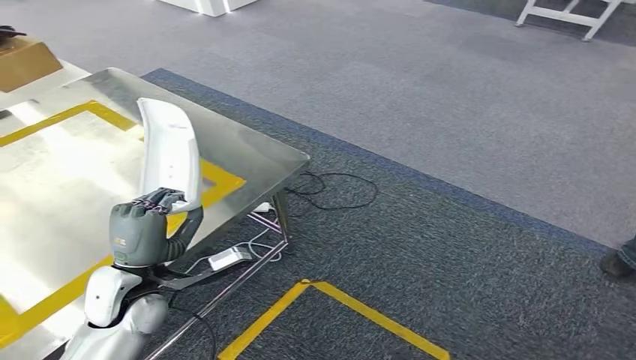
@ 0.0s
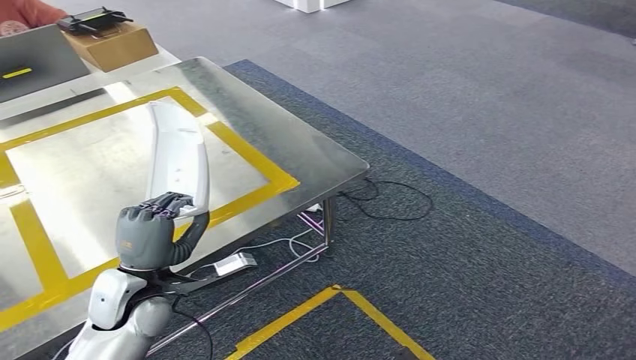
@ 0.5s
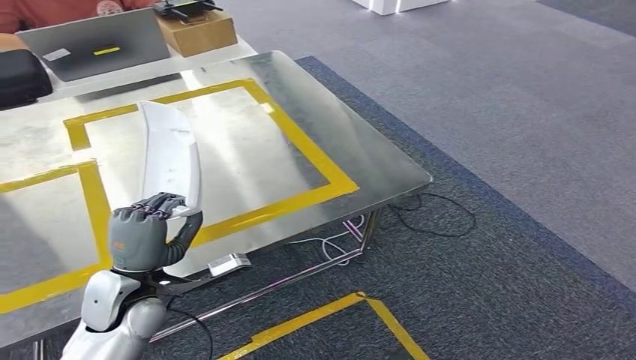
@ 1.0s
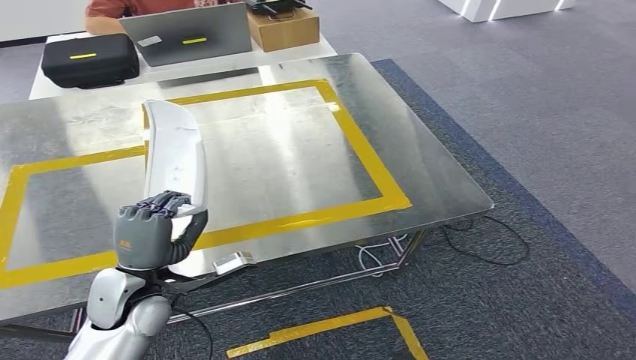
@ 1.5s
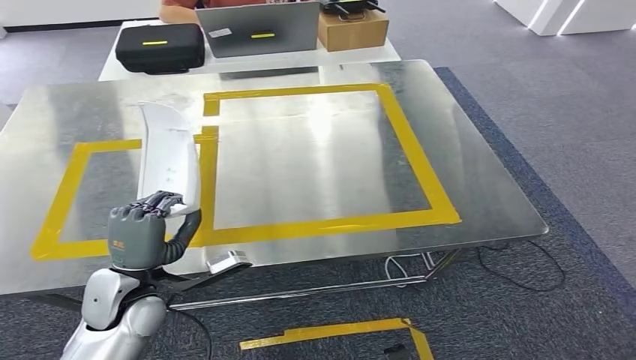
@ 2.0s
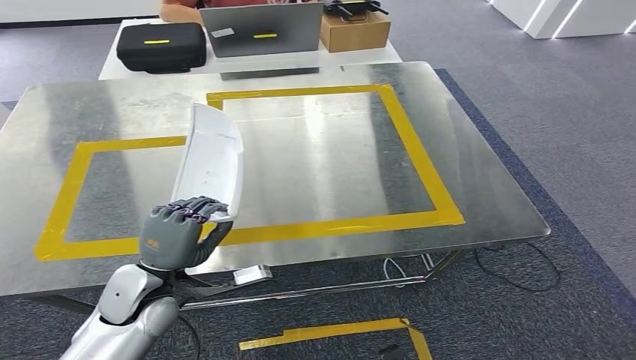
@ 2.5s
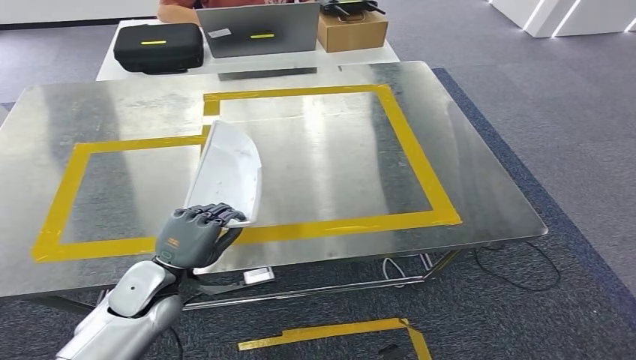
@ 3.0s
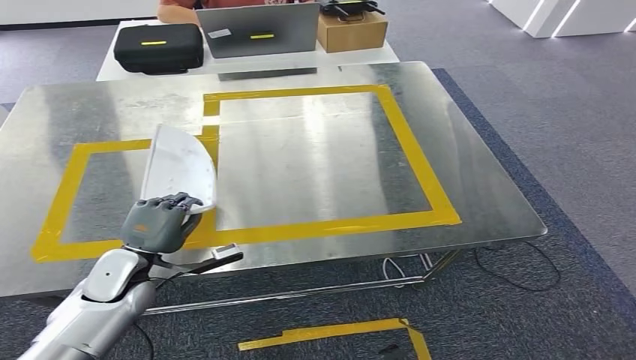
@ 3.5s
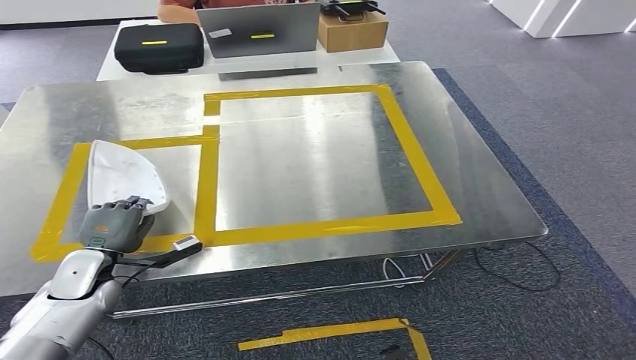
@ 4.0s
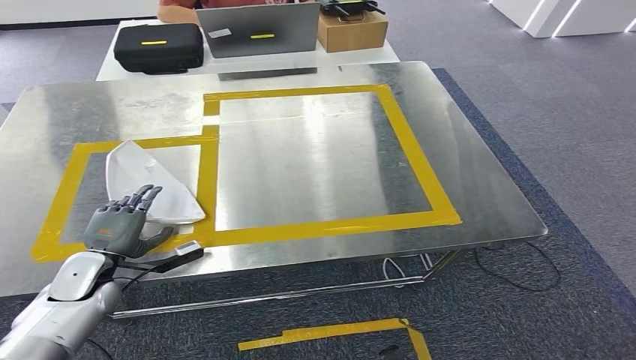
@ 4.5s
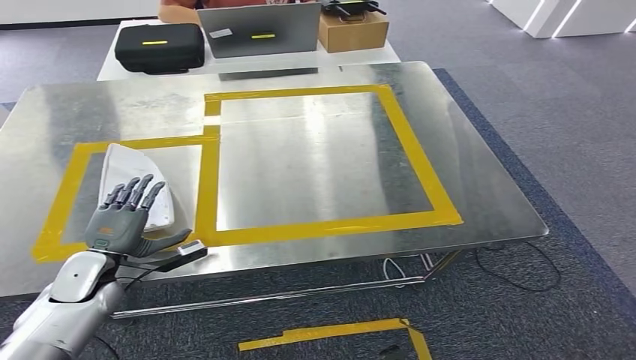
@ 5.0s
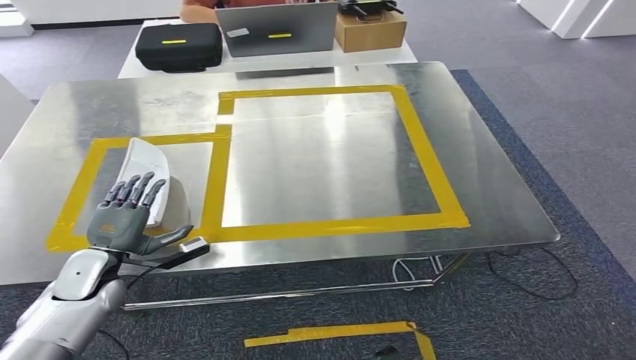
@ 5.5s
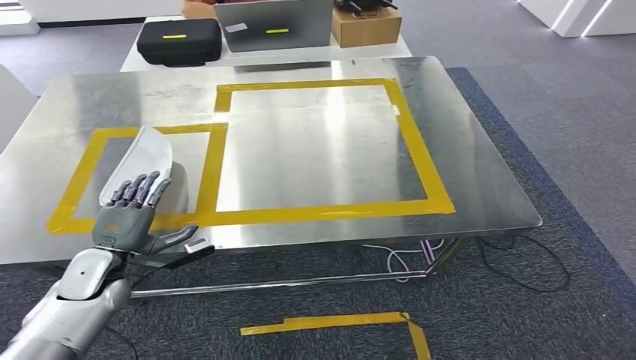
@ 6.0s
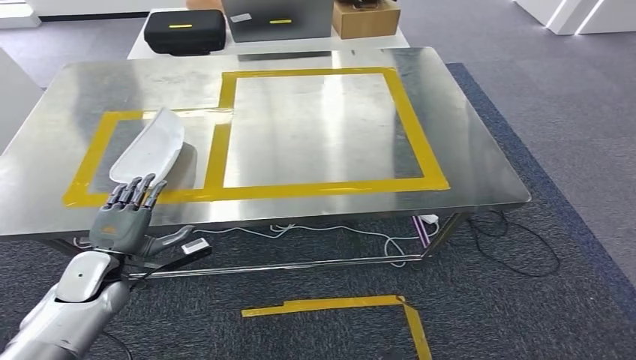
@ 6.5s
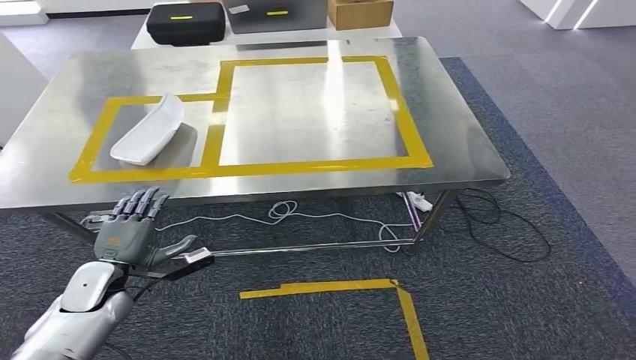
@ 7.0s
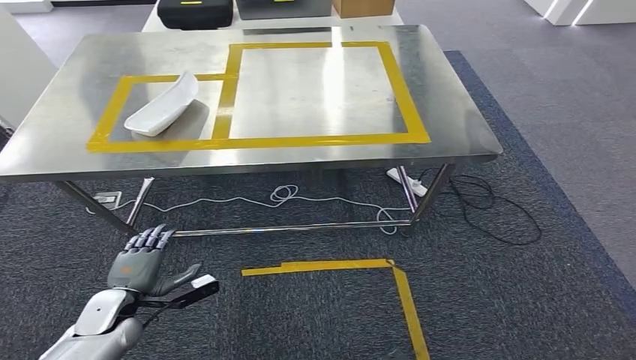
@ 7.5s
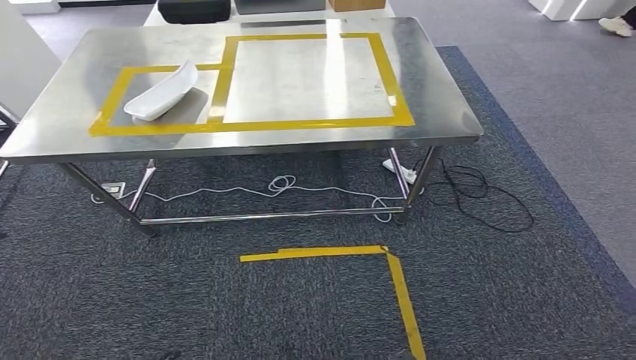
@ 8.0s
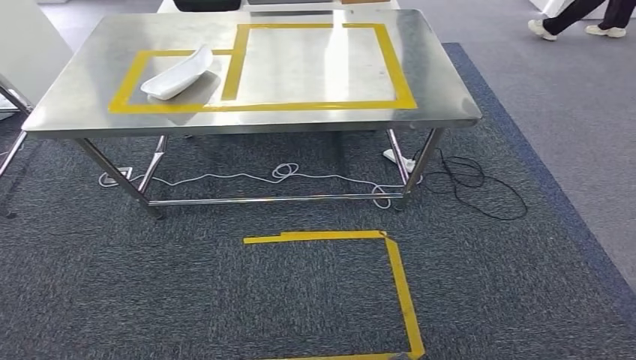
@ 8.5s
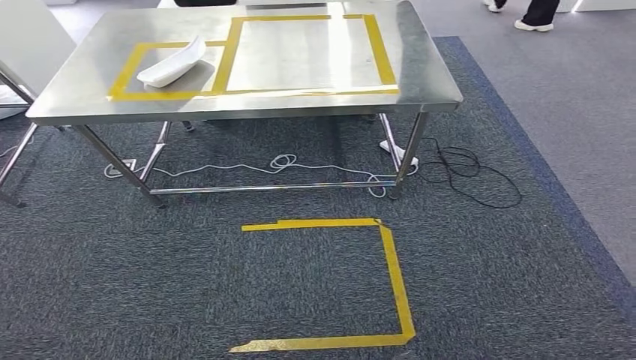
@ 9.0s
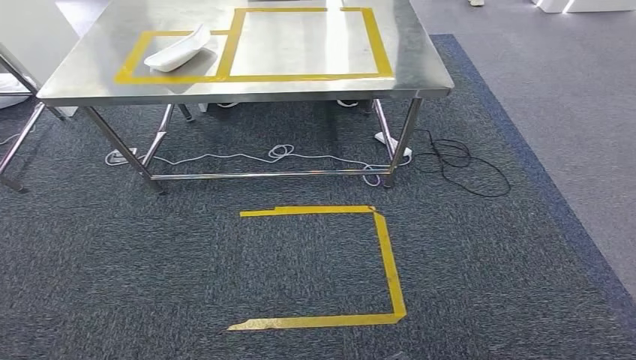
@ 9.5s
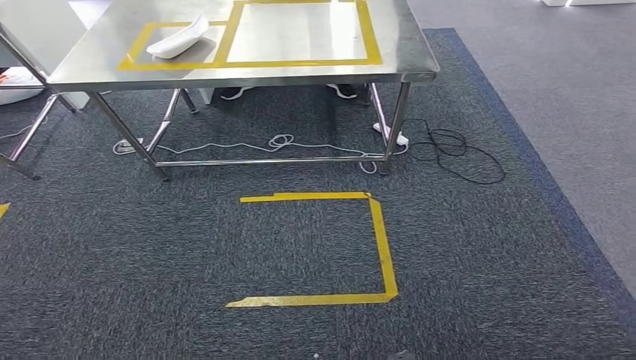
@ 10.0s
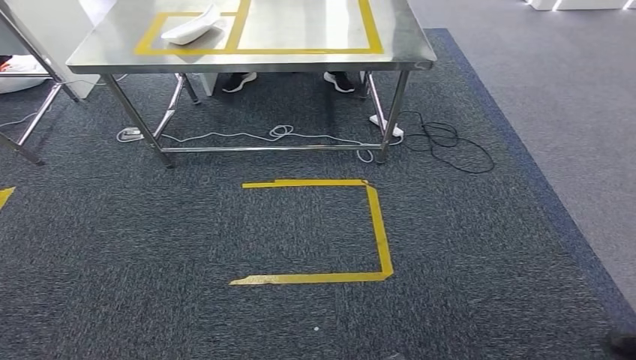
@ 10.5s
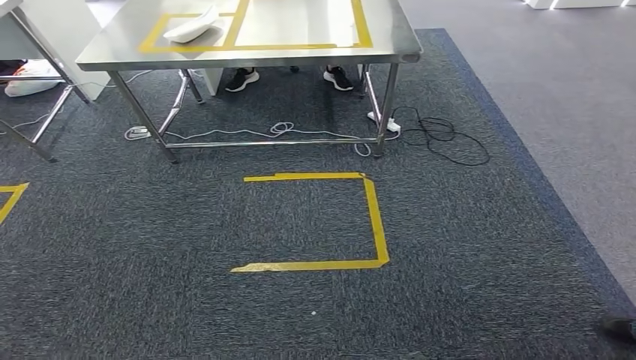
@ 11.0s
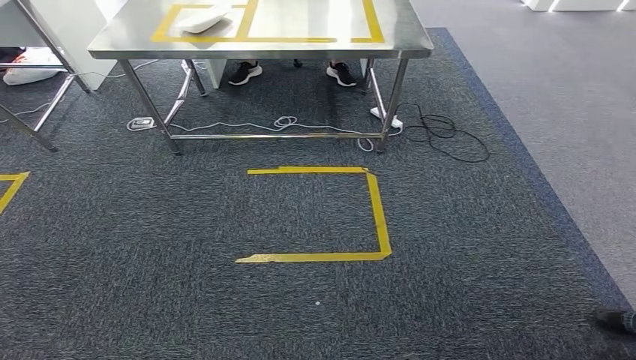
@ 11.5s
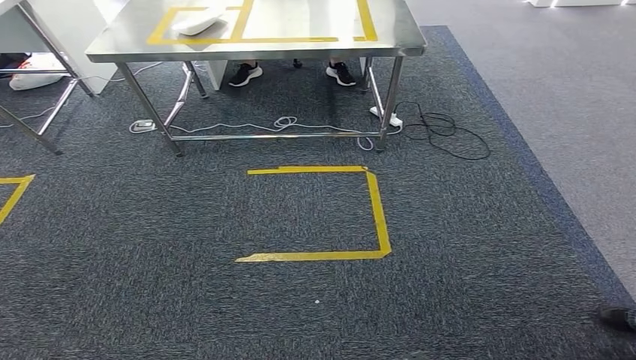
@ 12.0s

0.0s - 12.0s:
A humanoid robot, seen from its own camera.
Step, 0.0s - 2.5s: Move the small component to the workbench.
Step, 3.0s - 6.0s: Insert the small component into the corresponding slot on the workbench.
2.0s - 4.0s: The left hand is displaced to the left, forward and downward by roughly 10 cm.

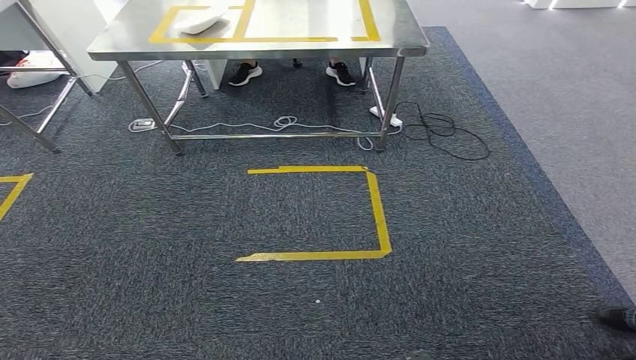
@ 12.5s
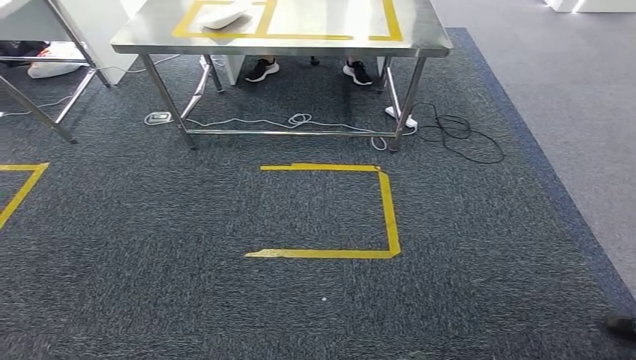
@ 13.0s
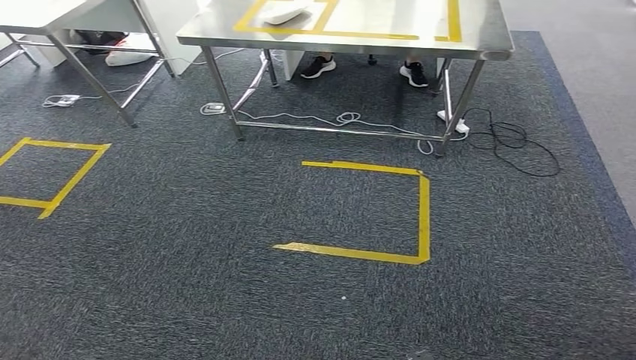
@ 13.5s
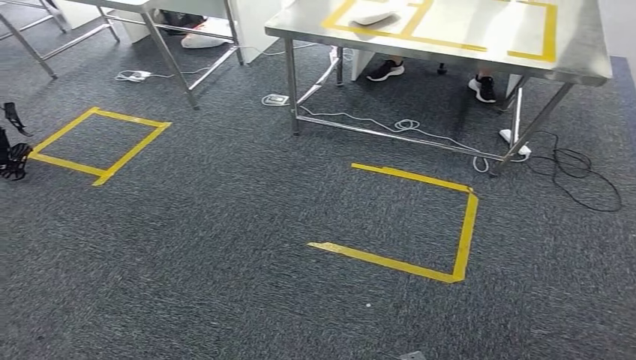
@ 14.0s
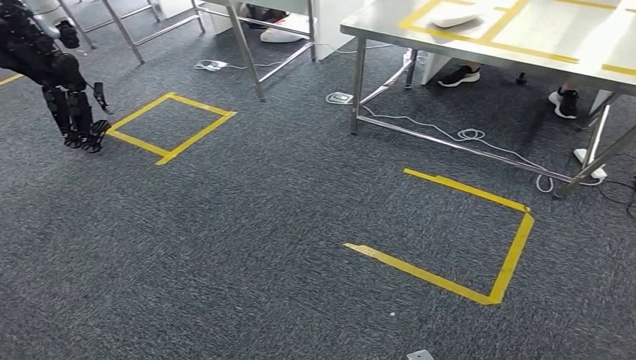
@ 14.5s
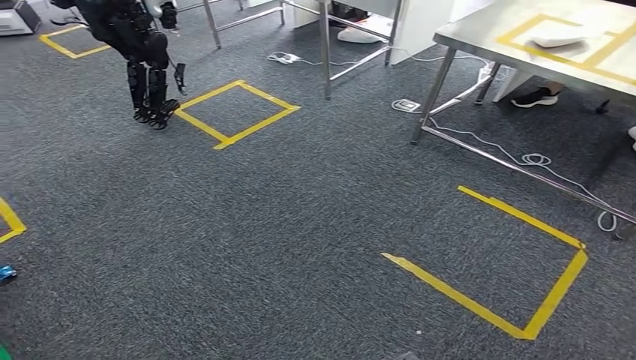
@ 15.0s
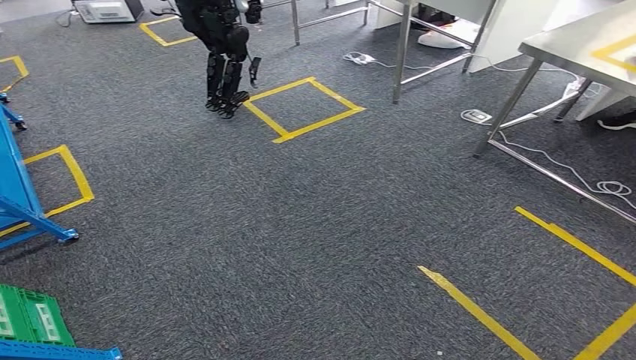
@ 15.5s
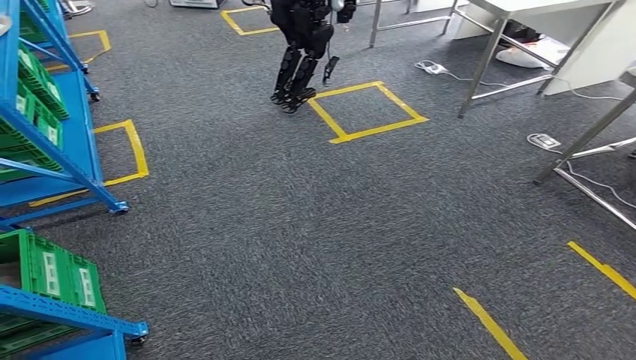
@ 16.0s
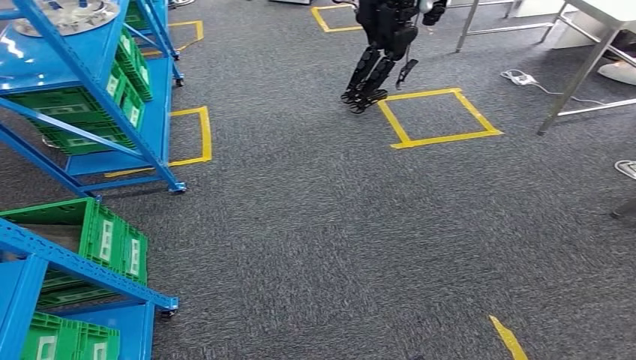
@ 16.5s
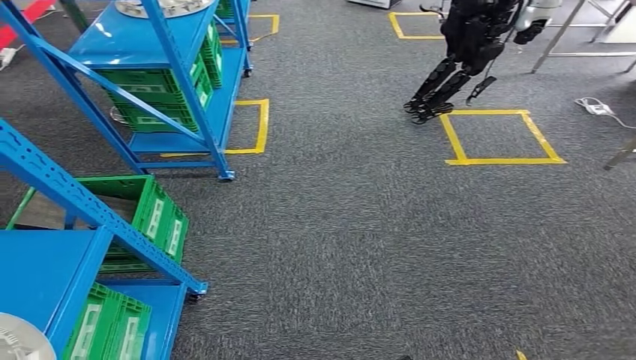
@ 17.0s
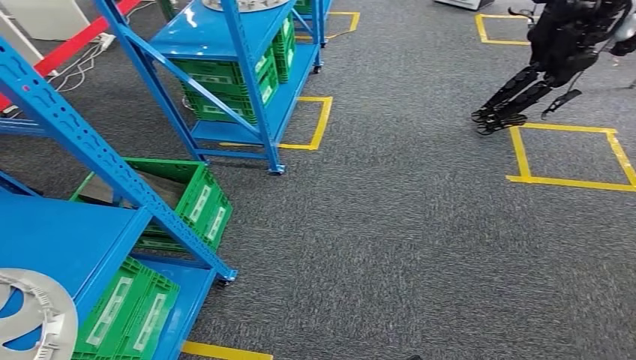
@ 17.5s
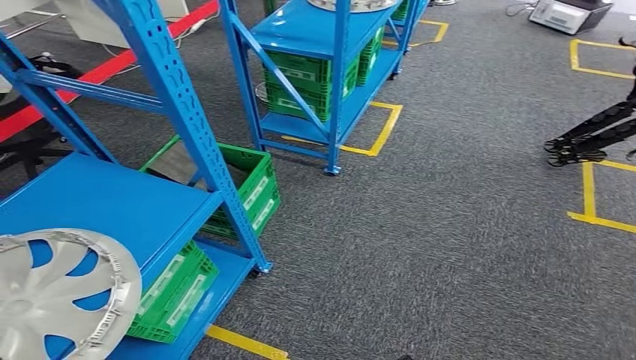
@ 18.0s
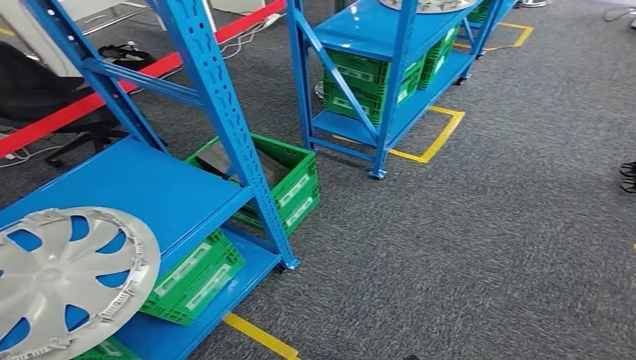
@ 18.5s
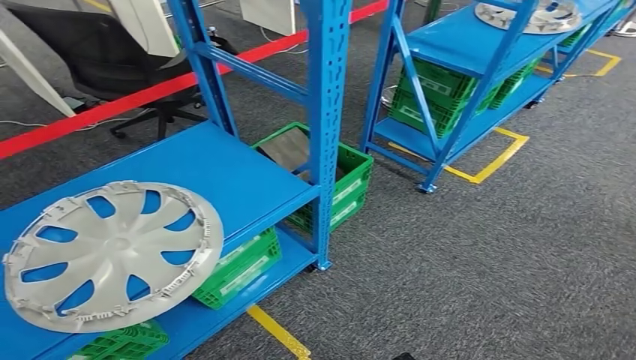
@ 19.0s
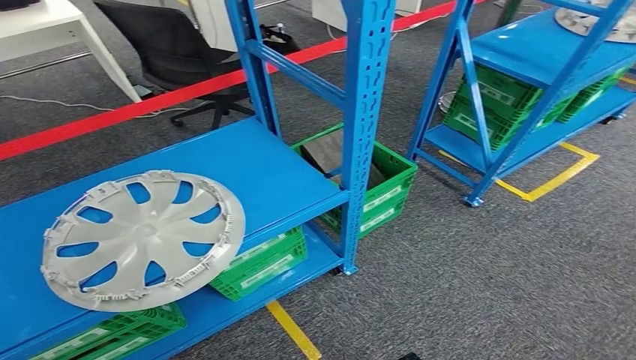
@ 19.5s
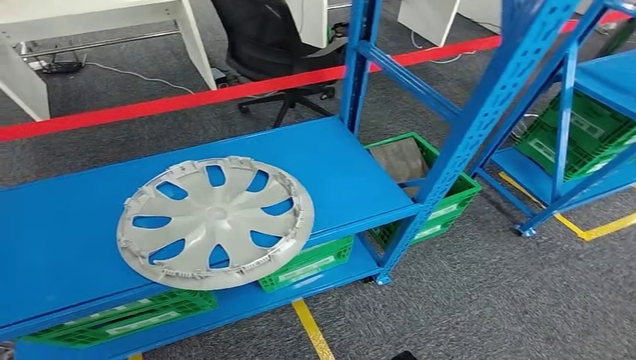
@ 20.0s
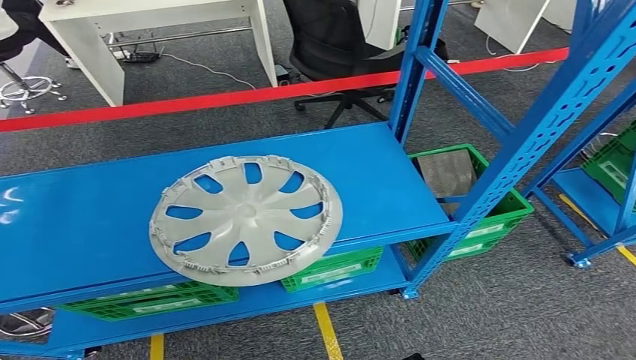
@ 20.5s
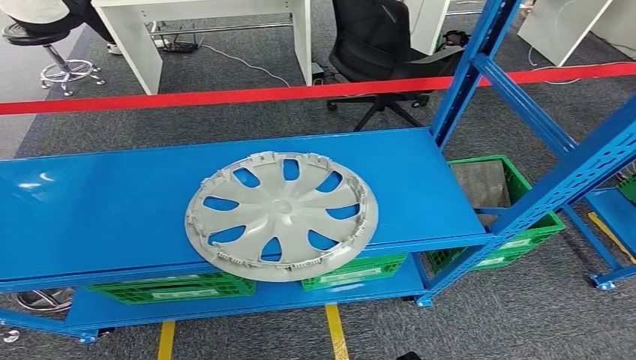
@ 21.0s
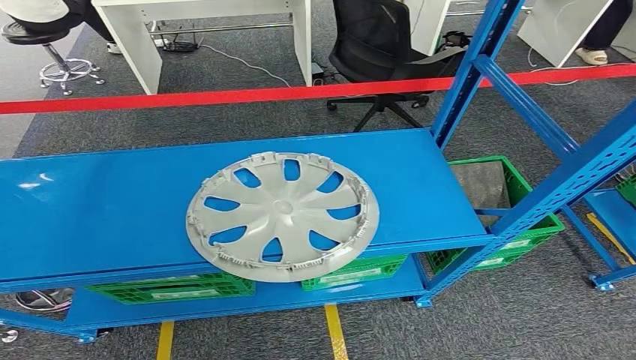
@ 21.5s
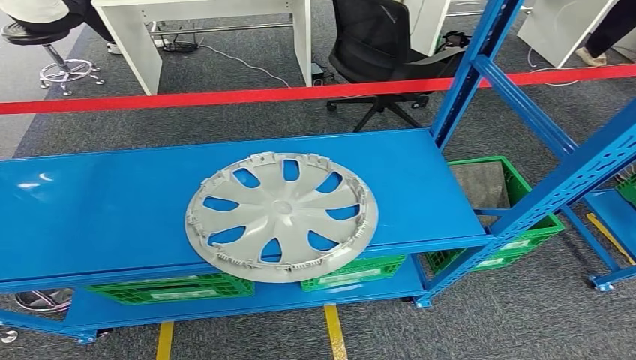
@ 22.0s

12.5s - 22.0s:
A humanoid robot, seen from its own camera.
Step, 12.5s - 22.0s: Return to the initial position at the workbench.
